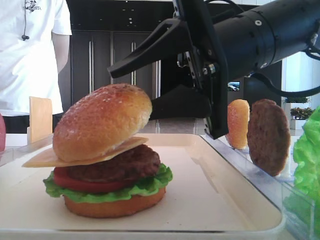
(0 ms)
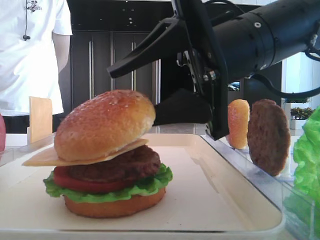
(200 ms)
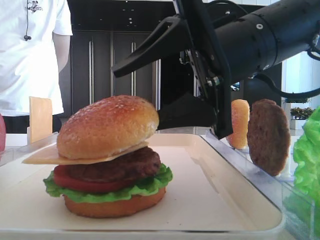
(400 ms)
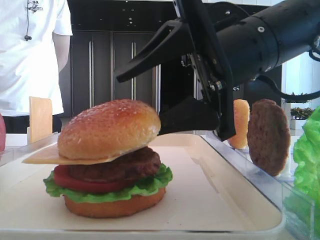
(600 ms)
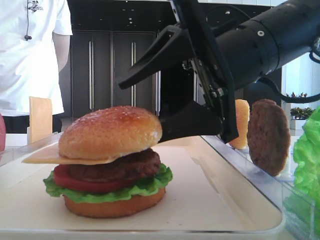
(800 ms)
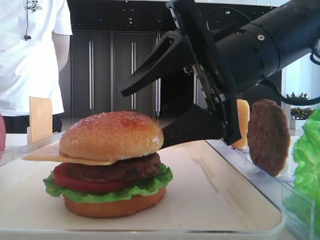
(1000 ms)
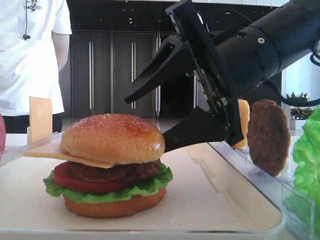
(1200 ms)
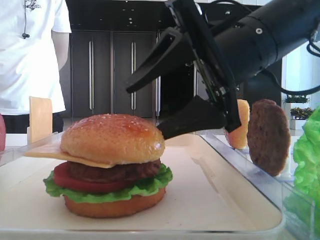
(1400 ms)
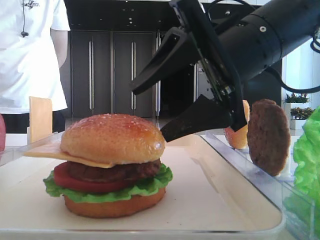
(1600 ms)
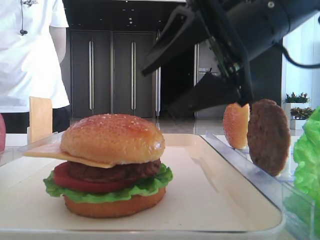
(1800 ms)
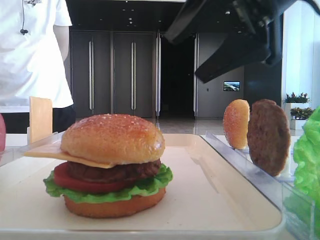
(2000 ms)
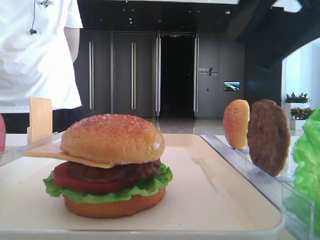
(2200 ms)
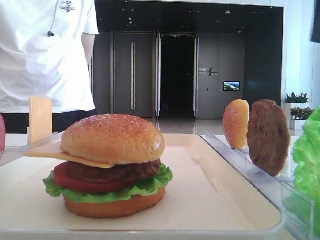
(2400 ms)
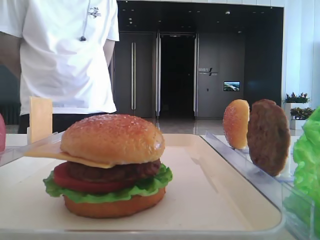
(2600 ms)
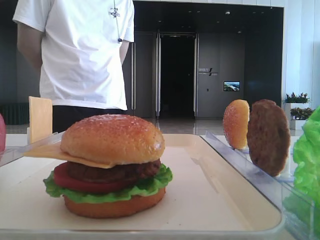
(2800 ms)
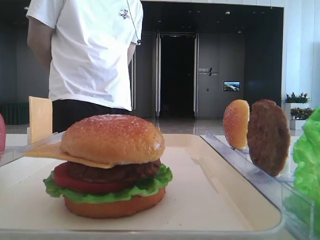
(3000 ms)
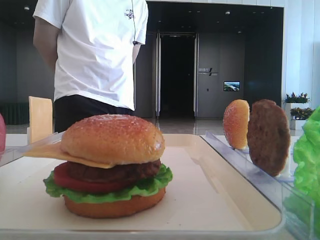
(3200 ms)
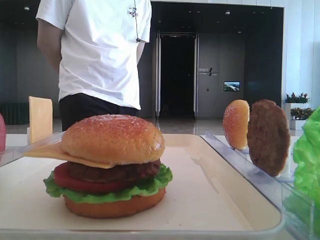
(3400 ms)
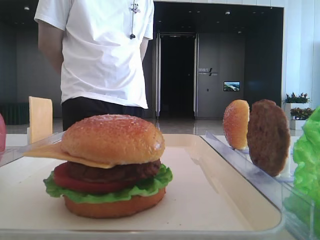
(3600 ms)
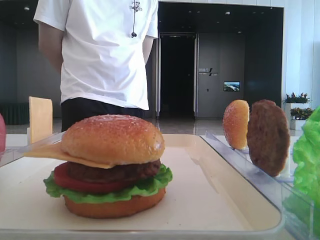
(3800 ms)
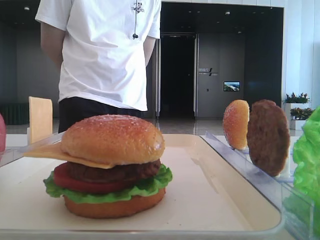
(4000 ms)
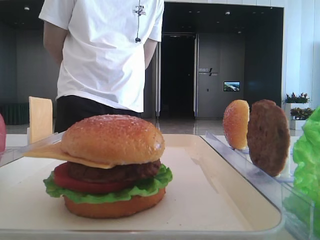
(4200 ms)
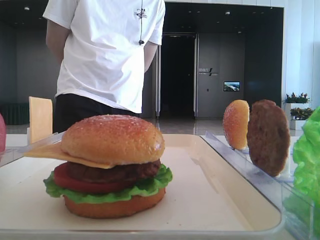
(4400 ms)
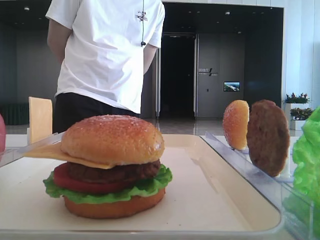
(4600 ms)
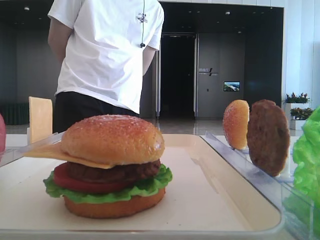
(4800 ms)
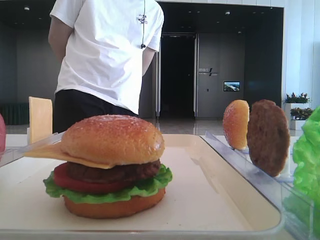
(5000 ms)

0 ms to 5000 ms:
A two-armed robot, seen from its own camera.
0 ms to 1600 ms: The right gripper opens.
1600 ms to 3400 ms: The right gripper travels to the right, upward and backward by about 30 cm, and closes.
3400 ms to 5000 ms: The right gripper moves backward and downward, roughly 15 cm.

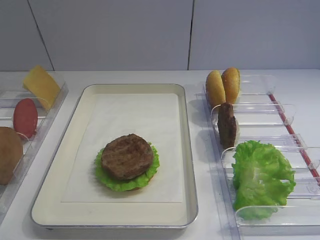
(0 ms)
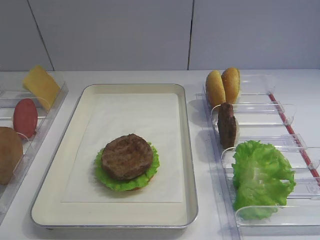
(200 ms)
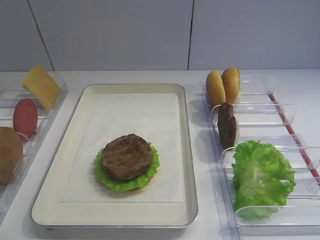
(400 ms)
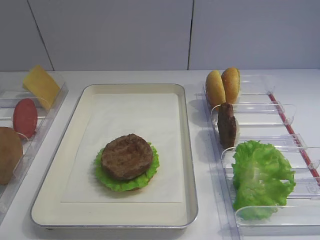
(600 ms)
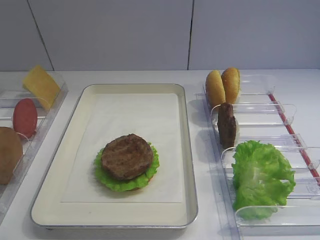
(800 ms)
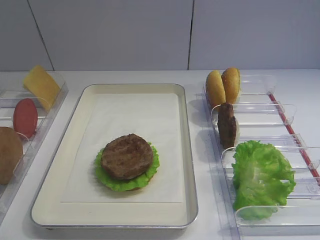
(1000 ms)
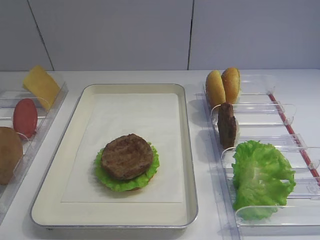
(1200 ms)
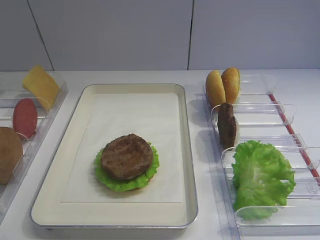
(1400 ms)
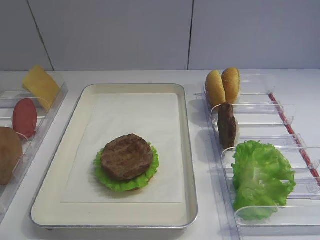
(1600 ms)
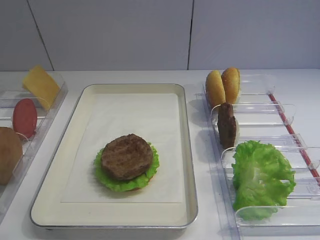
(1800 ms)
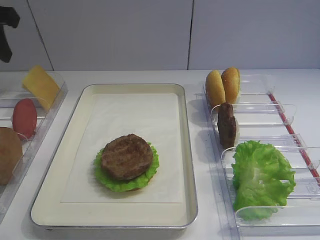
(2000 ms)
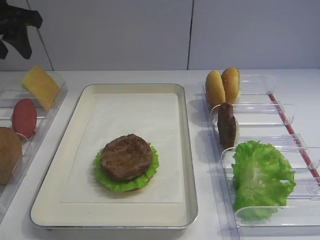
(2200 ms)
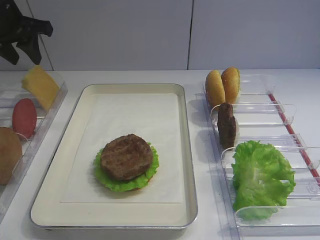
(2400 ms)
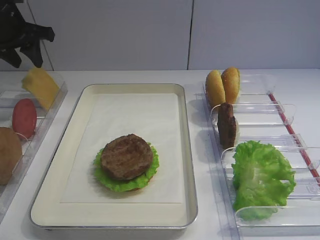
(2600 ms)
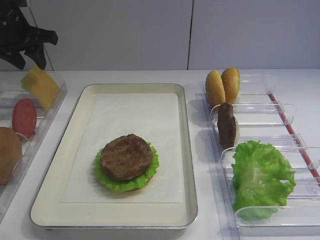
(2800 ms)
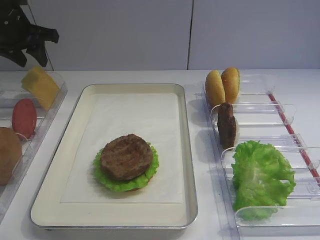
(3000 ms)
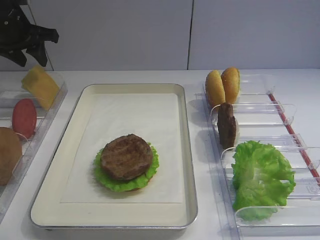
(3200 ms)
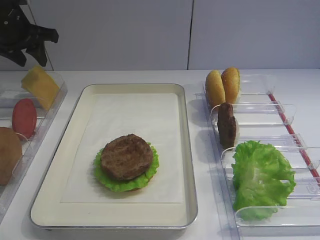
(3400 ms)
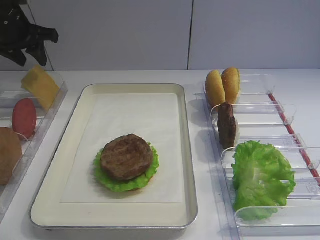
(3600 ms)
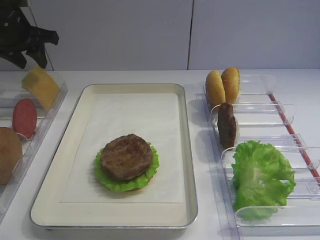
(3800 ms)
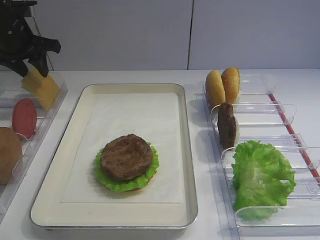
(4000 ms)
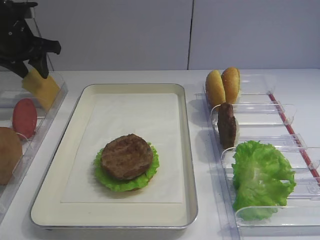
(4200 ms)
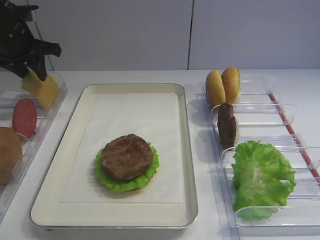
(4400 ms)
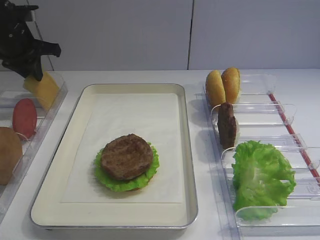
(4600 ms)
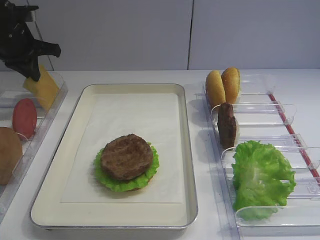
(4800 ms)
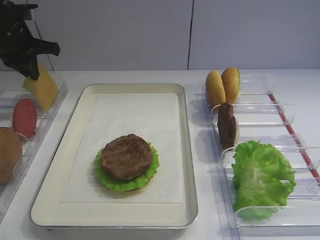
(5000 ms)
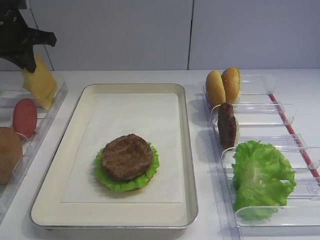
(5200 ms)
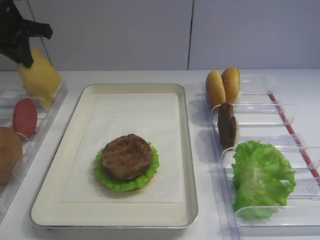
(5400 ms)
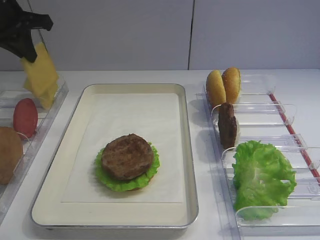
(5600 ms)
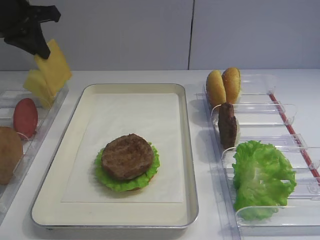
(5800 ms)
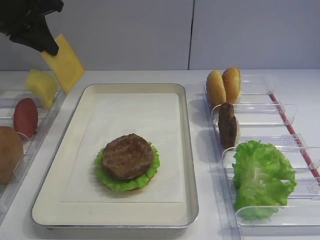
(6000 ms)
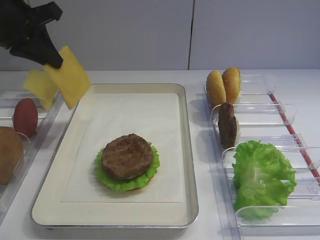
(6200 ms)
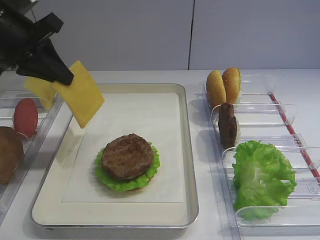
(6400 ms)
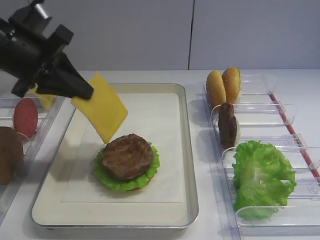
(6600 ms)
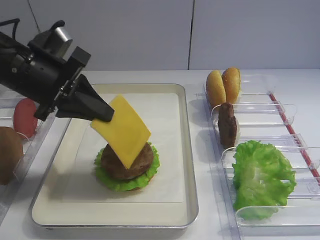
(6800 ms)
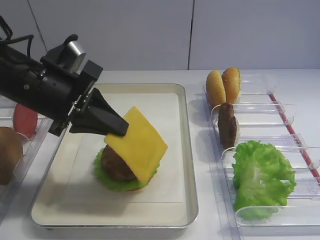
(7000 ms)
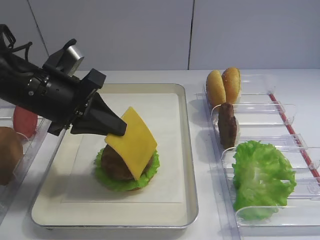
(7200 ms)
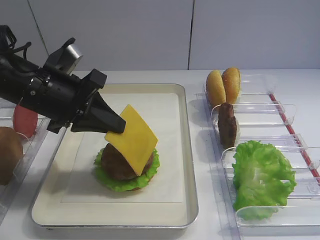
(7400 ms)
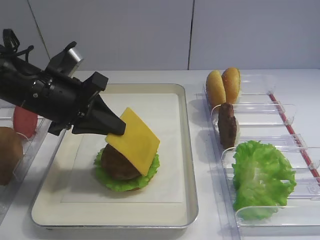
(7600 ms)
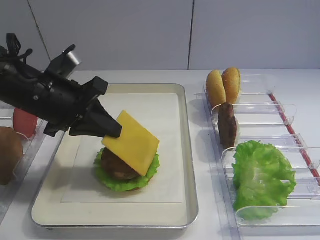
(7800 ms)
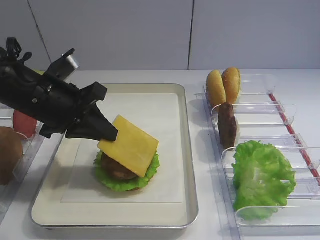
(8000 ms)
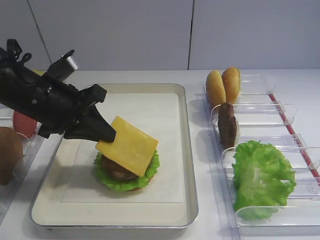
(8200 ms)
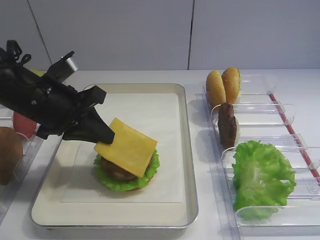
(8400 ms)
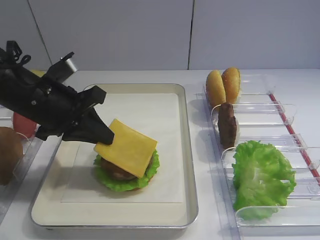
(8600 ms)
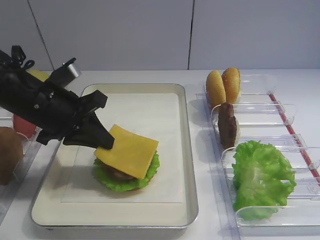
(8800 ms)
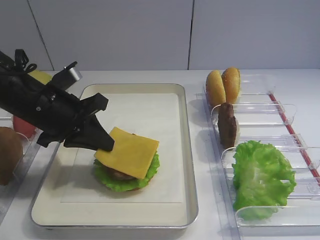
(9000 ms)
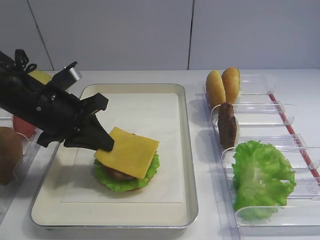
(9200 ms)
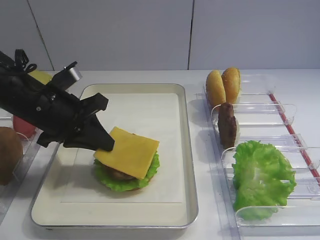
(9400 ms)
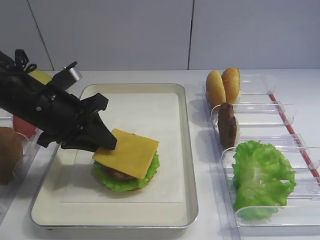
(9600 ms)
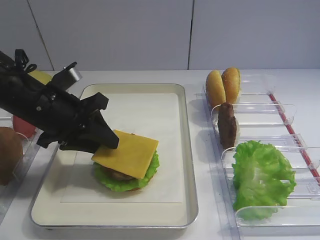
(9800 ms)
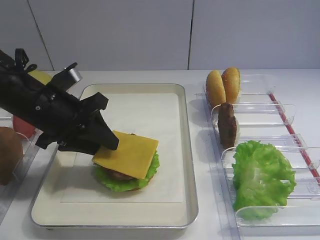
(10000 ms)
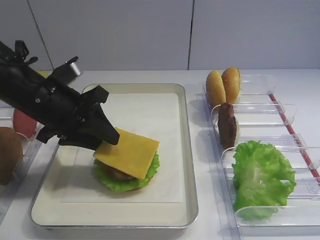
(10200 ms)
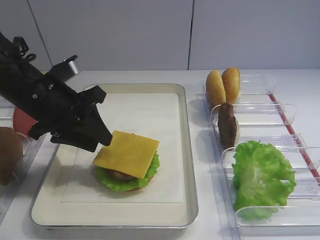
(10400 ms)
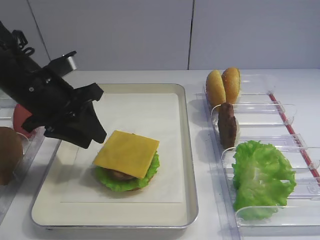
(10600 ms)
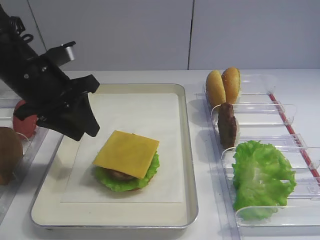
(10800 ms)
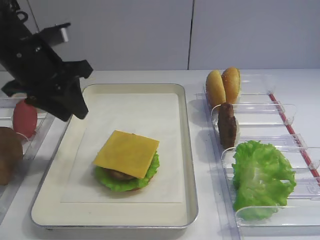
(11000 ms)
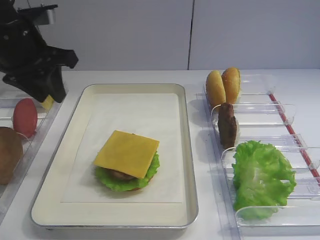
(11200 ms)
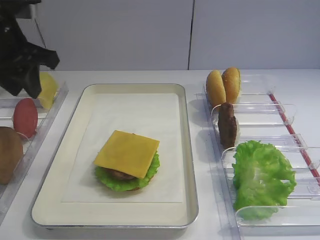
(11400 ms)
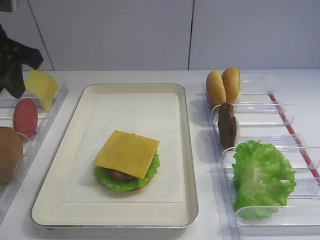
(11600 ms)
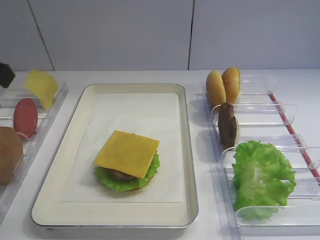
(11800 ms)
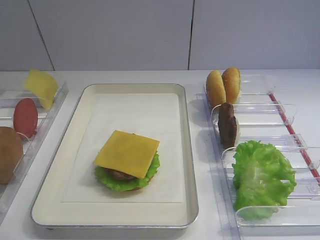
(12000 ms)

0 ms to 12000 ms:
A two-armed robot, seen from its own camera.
Step, 0 ms to 5400 ms: Pick up the cheese slice with the left gripper.
Step, 5600 ms to 10600 ms: Place the cheese slice on the cutlet with the left gripper.
1600 ms to 3000 ms: The left gripper heads forward, covering approximately 25 cm.
4400 ms to 6000 ms: The left gripper moves upward and backward, approximately 10 cm, and closes up.
6000 ms to 7600 ms: The left gripper is displaced downward, backward and to the right by about 15 cm.
7600 ms to 9000 ms: The grippers move only a little.
9000 ms to 10400 ms: The left gripper opens.
10400 ms to 12000 ms: The left gripper moves backward, upward and to the left, approximately 20 cm.

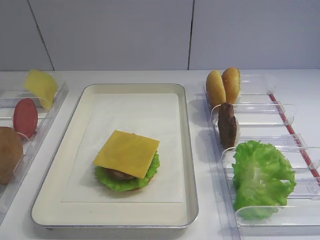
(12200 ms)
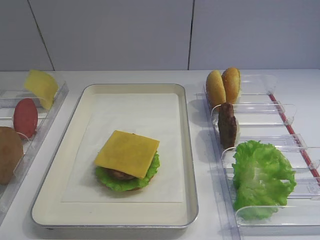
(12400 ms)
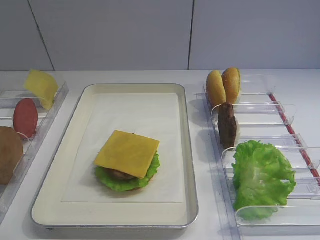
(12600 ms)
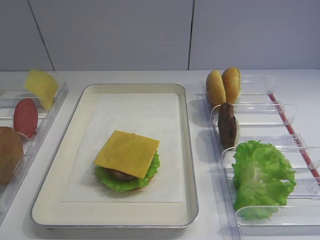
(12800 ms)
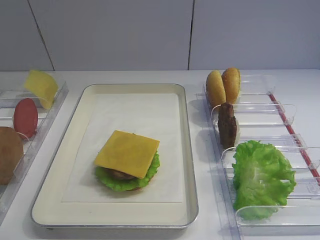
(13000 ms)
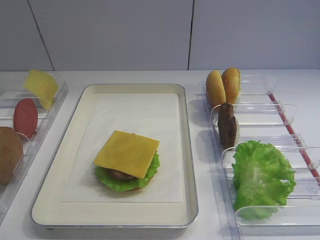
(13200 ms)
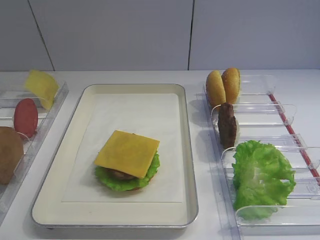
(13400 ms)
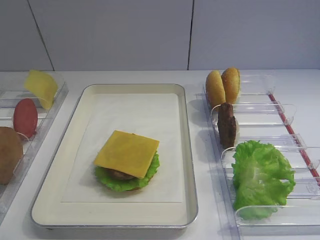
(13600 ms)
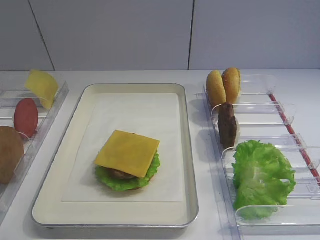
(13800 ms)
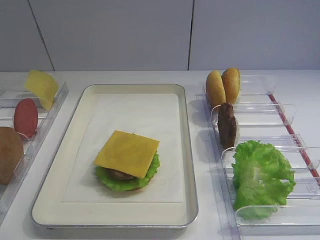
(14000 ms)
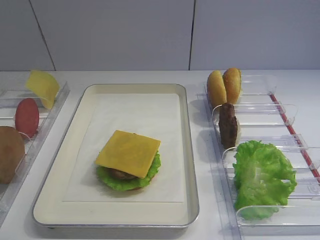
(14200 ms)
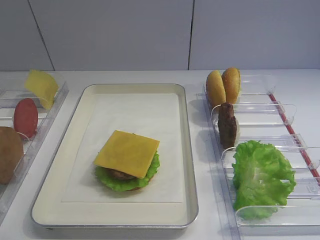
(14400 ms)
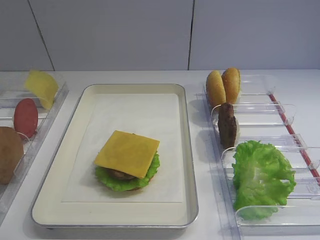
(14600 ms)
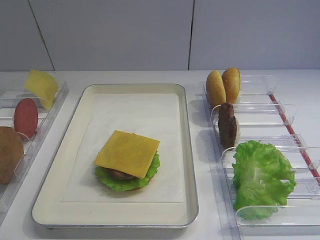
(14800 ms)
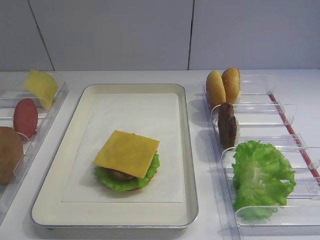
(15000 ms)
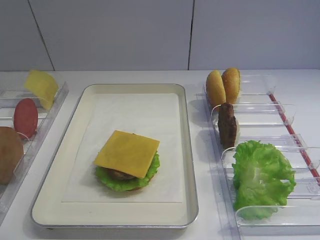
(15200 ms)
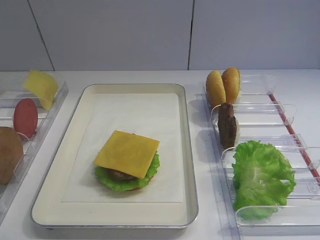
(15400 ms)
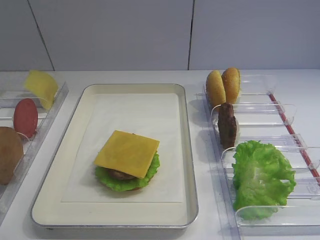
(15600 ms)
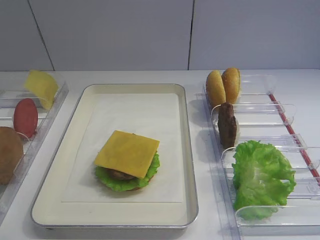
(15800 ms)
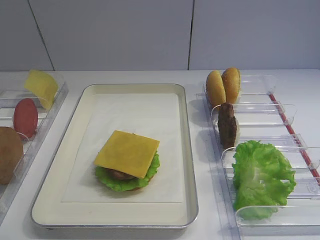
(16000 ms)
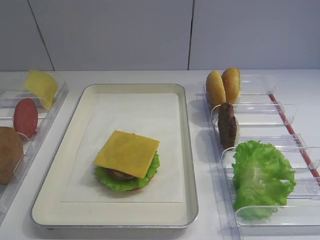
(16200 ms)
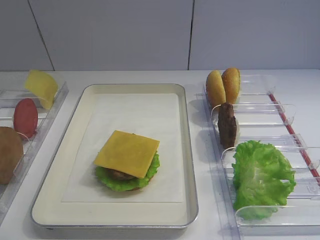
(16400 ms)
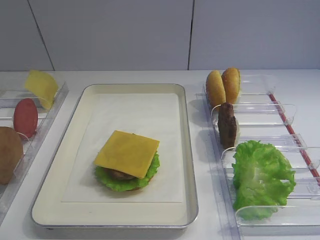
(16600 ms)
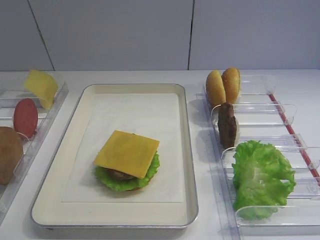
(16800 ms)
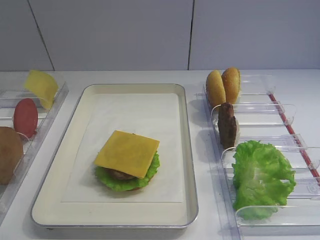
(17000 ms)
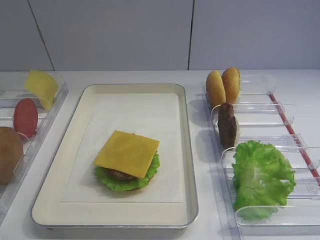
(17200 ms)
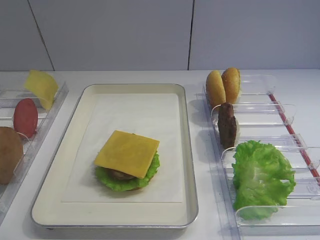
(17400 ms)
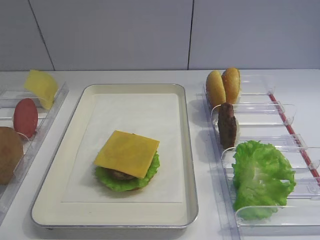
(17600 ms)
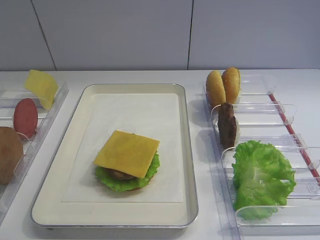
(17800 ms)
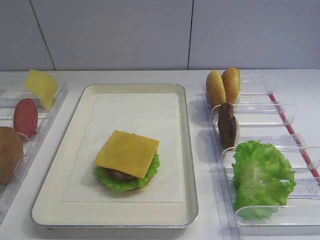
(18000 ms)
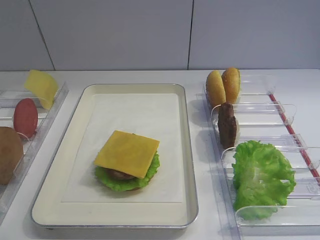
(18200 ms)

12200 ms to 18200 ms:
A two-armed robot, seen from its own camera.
15200 ms to 18200 ms: Both grippers stay about where they are.
